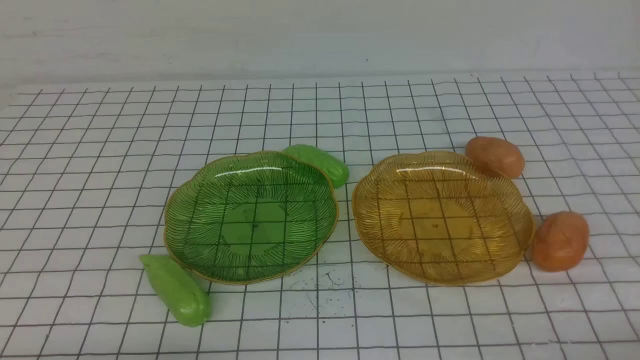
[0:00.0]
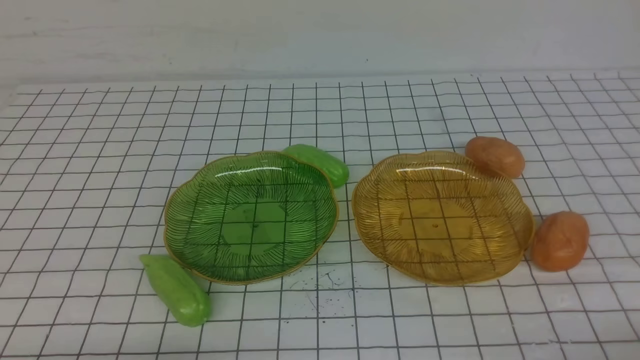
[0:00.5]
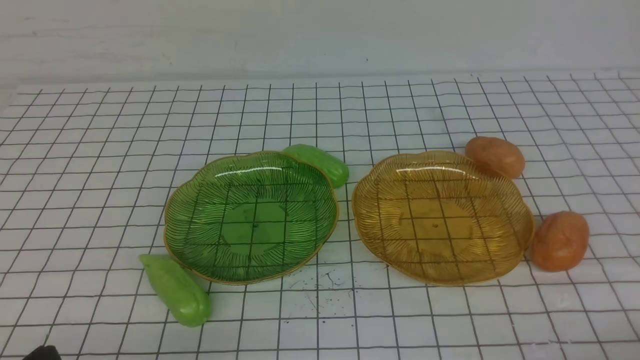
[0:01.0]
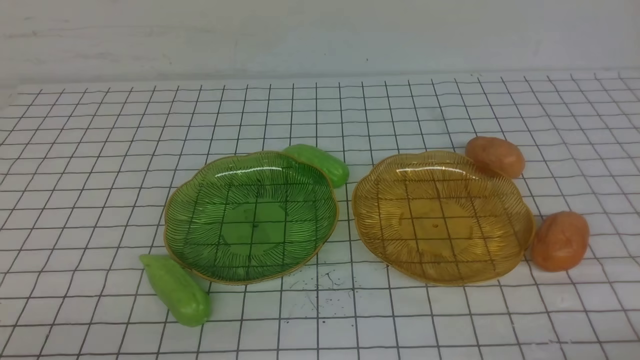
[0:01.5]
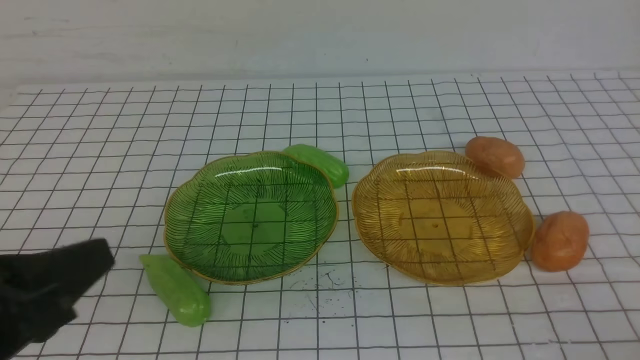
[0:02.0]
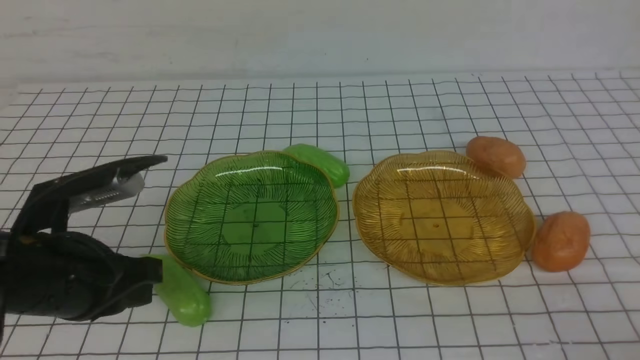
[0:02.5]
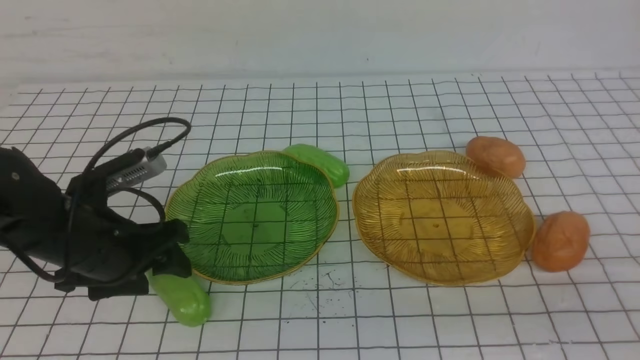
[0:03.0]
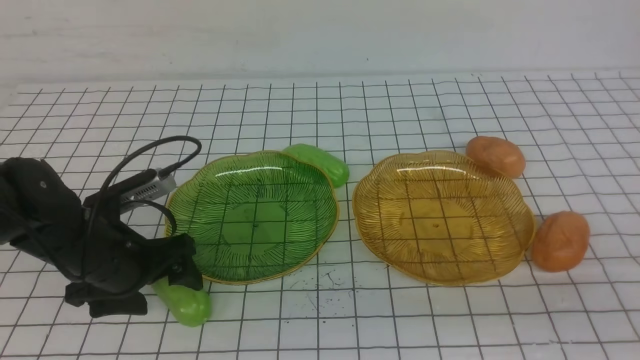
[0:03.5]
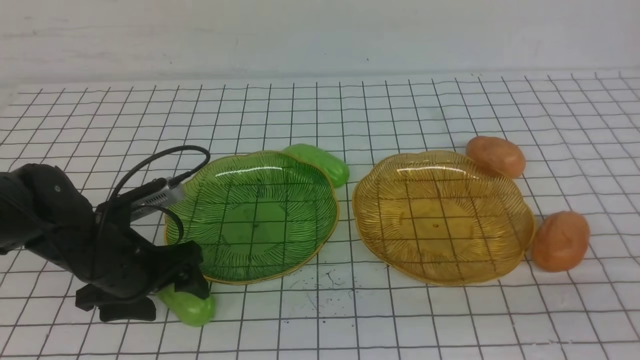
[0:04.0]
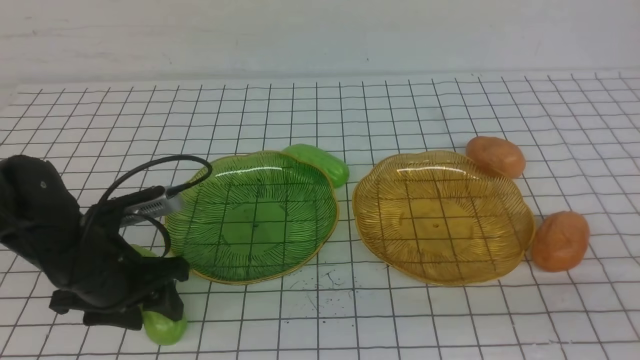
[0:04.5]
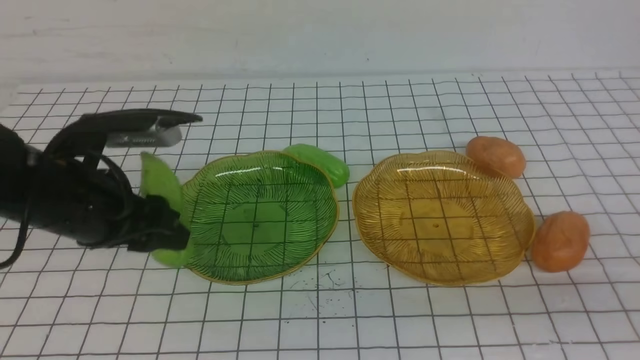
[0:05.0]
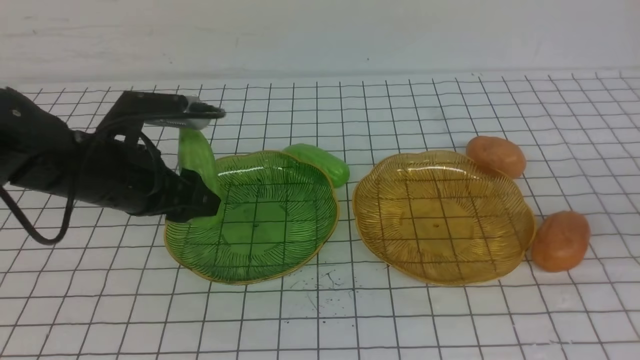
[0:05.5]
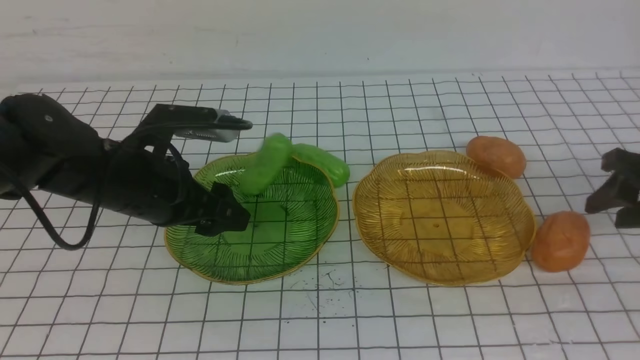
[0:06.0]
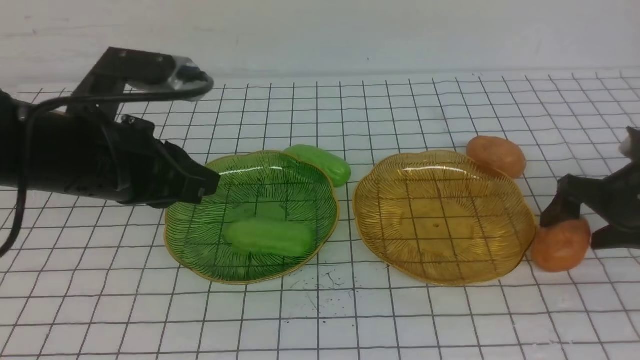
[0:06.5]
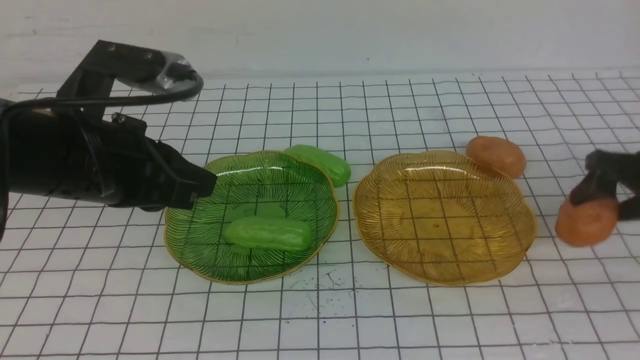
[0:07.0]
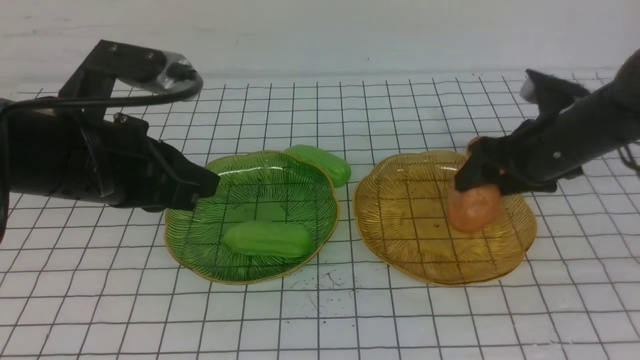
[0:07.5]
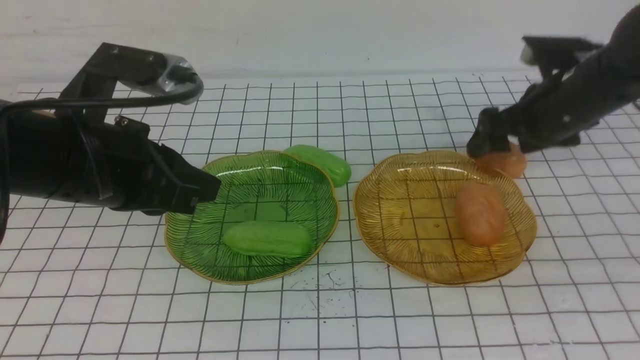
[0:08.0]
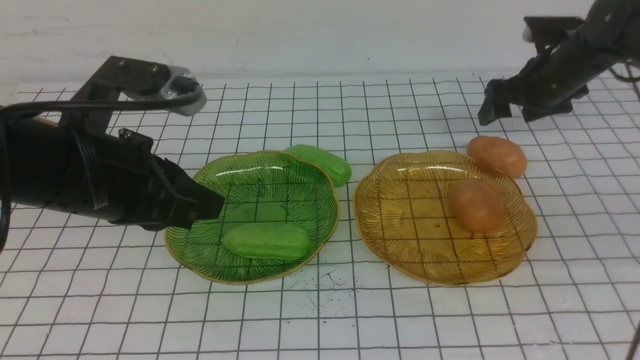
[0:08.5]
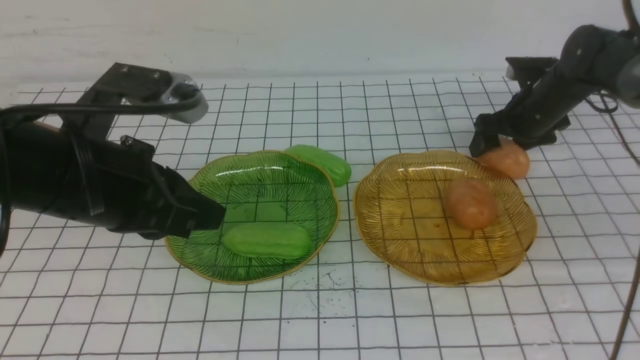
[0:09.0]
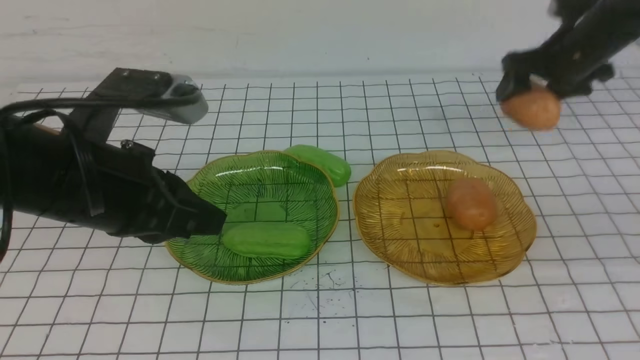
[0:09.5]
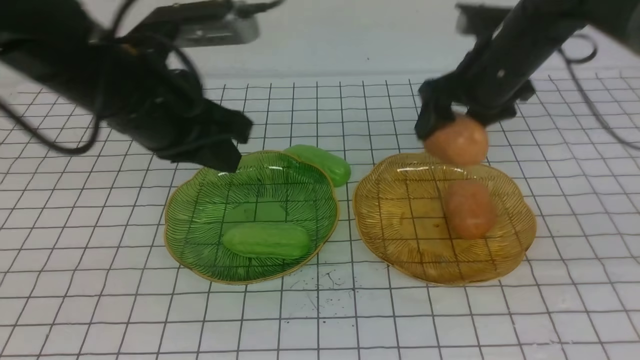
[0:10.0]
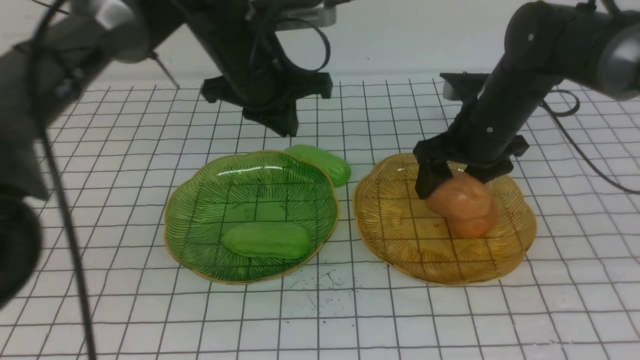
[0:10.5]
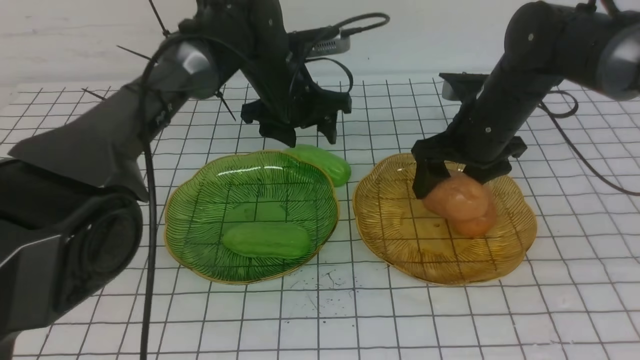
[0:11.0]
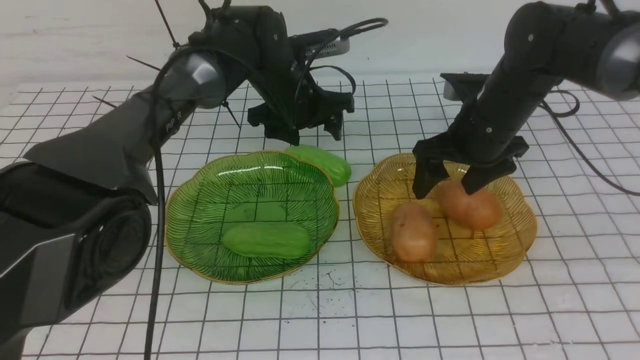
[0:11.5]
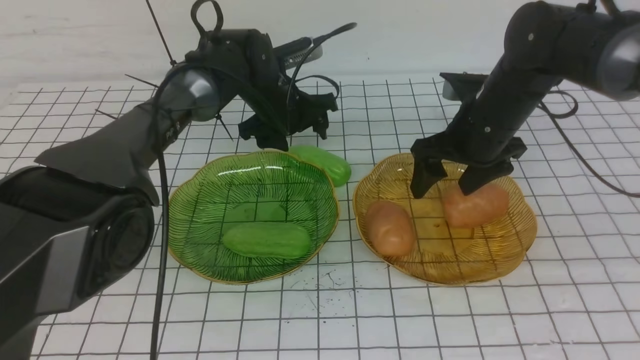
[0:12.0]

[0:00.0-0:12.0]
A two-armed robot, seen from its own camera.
Step, 0:00.0 to 0:06.0: use the left arm to grab a chayote and put it into the left plate.
Step, 0:06.5 to 0:11.0: Grab a potato with your right arm and put it on the right plate.
0:02.0 to 0:04.0: The left gripper shifts approximately 25 cm forward and downward, and opens its fingers.
0:04.0 to 0:06.0: The right gripper goes some 25 cm forward, and opens up; the left gripper shifts some 5 cm upward.
0:06.0 to 0:08.0: The right gripper heads to the left and forward, covering roughly 15 cm, and opens its fingers. The left gripper moves upward and backward, some 10 cm, and closes up.
0:08.0 to 0:10.0: The left gripper changes place by some 5 cm.
0:10.0 to 0:12.0: The right gripper is displaced downward by some 5 cm. Meanwhile the left gripper is displaced forward, downward and to the right by roughly 25 cm, and opens.

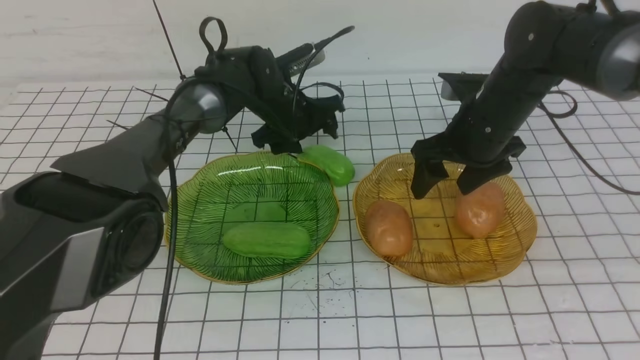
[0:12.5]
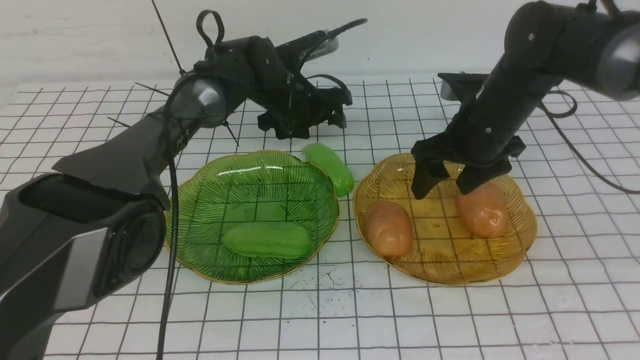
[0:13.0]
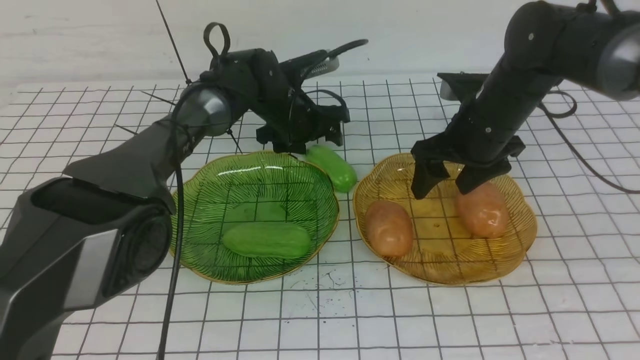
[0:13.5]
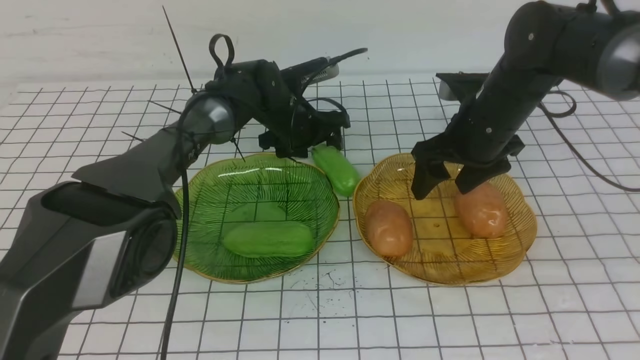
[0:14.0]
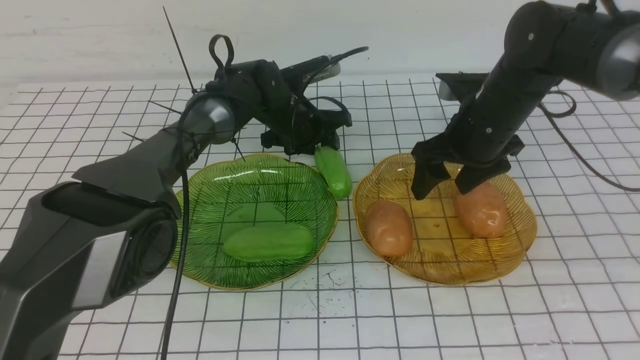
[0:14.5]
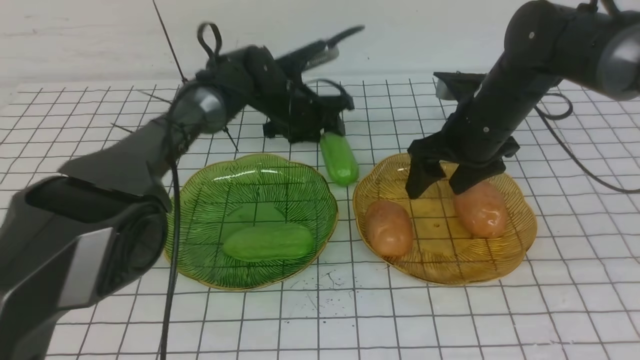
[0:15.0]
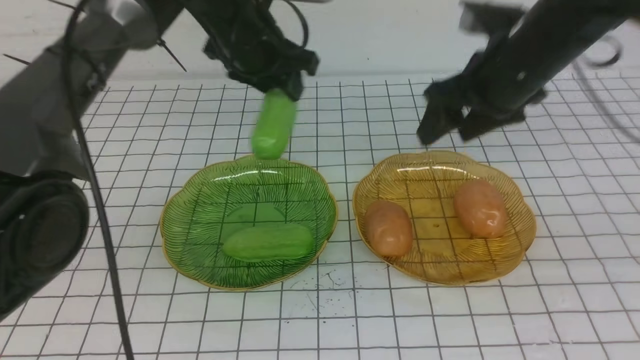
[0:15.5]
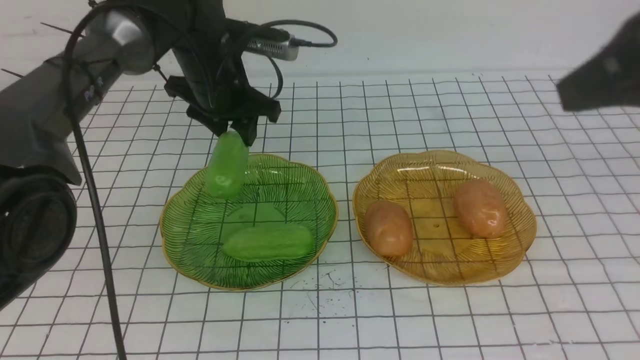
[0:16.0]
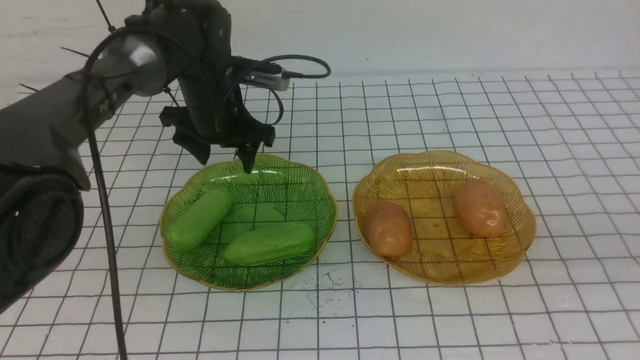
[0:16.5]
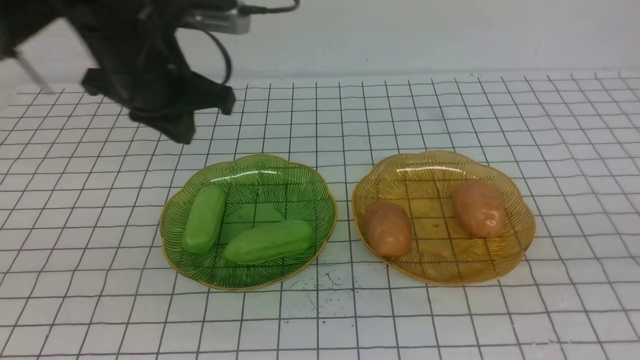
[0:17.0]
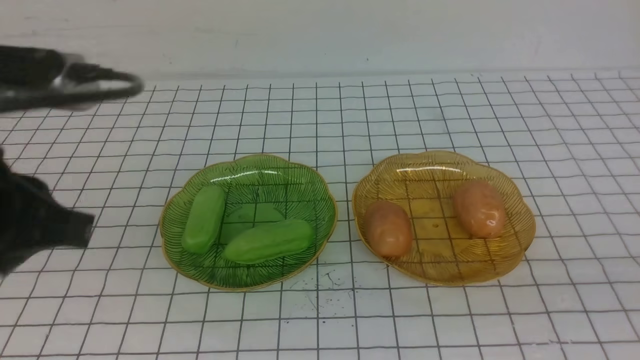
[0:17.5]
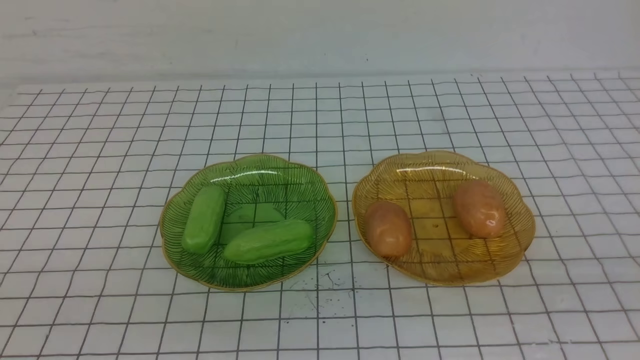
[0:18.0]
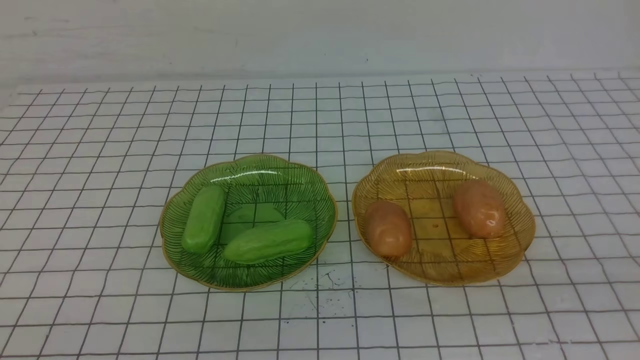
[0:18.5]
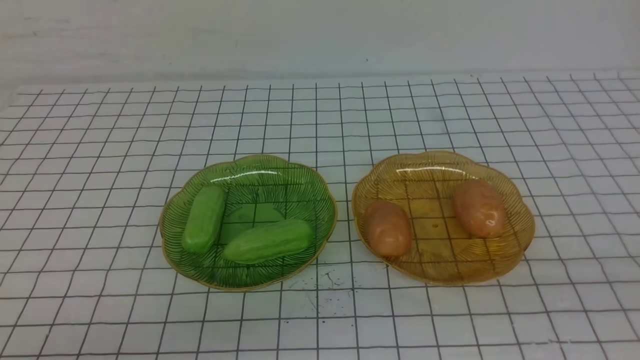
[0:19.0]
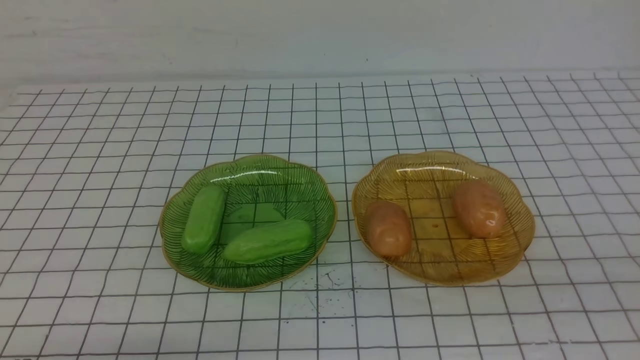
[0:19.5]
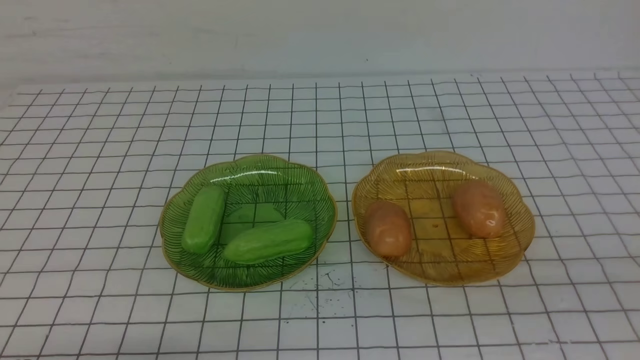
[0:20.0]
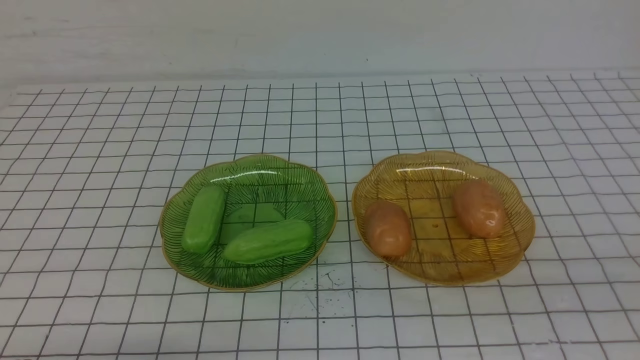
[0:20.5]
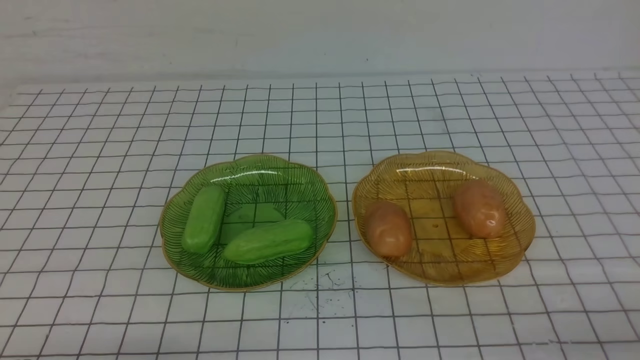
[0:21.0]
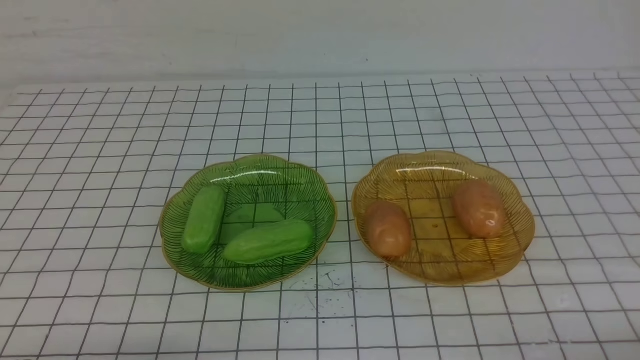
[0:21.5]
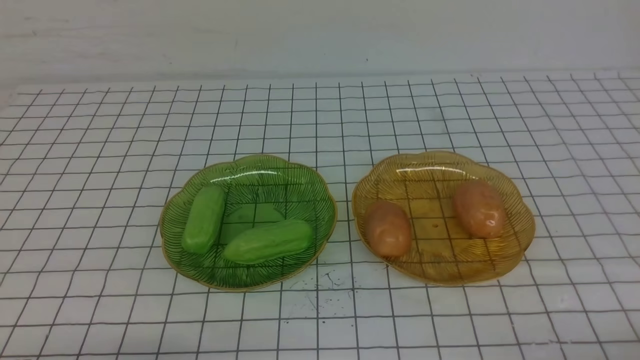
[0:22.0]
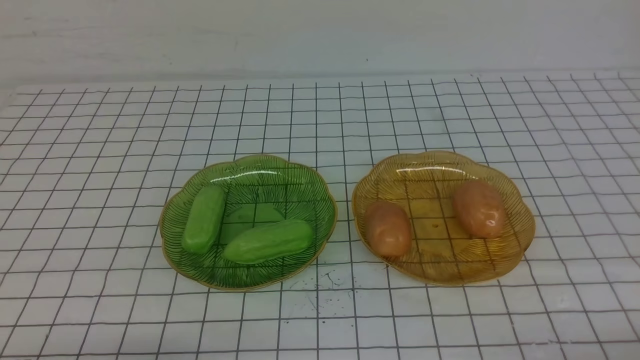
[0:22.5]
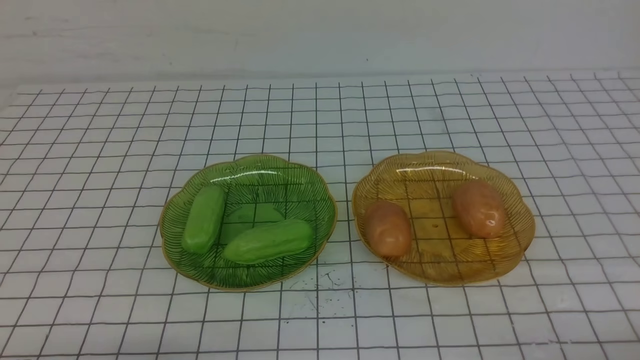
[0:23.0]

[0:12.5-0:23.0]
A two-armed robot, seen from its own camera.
Step, 0:12.5 to 0:16.0: use the left arm to grab a chayote and put it into the left plate.
0:12.5 to 0:14.5: The grippers move only a little.
0:14.5 to 0:16.5: The left gripper goes some 15 cm upward, to the left and backward, while the right gripper shifts about 40 cm backward and upward, and closes.
0:16.5 to 0:19.0: The right gripper travels downward and backward by approximately 10 cm. The left gripper is displaced backward by roughly 40 cm, and closes.
